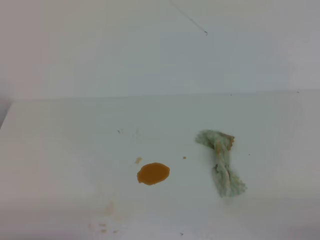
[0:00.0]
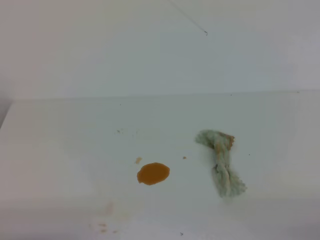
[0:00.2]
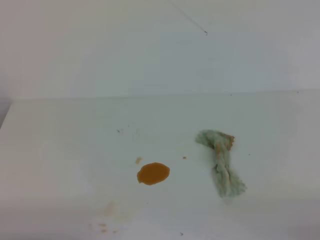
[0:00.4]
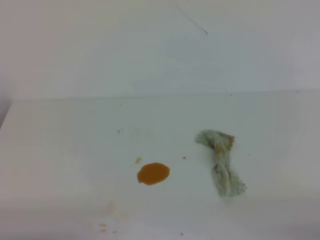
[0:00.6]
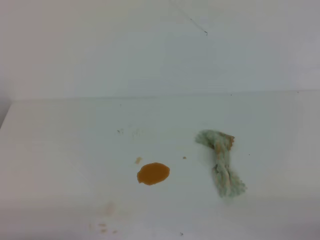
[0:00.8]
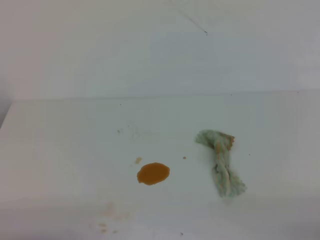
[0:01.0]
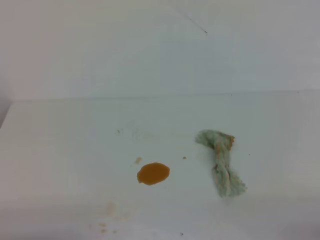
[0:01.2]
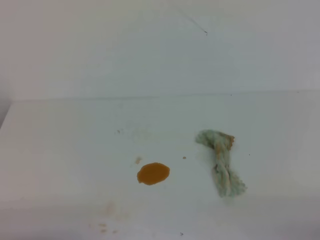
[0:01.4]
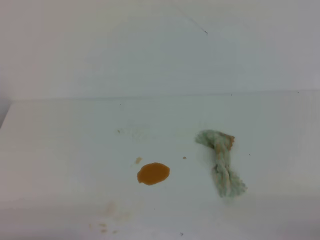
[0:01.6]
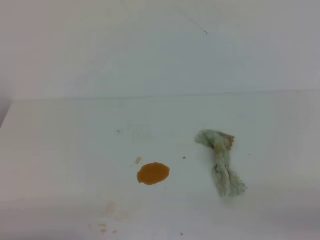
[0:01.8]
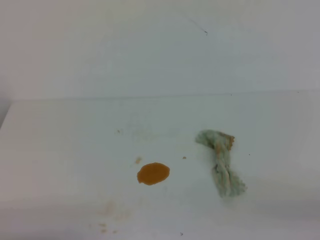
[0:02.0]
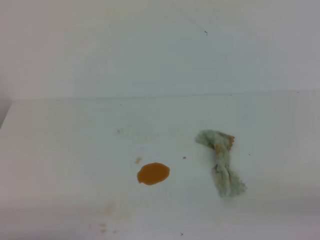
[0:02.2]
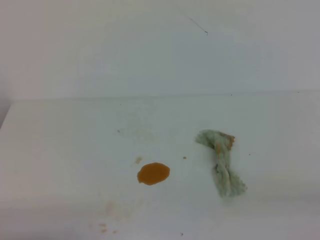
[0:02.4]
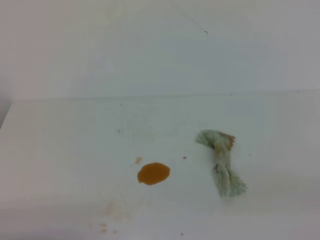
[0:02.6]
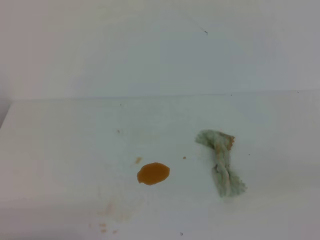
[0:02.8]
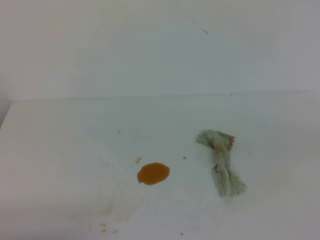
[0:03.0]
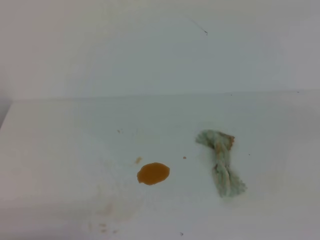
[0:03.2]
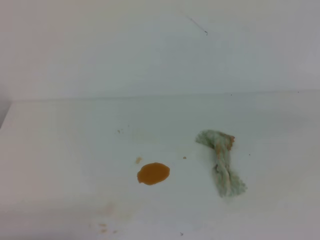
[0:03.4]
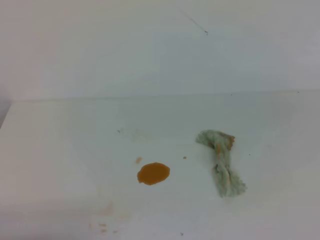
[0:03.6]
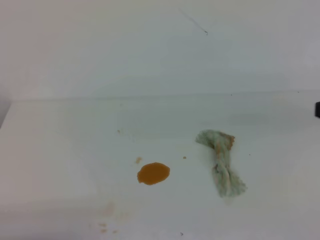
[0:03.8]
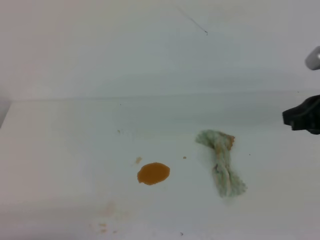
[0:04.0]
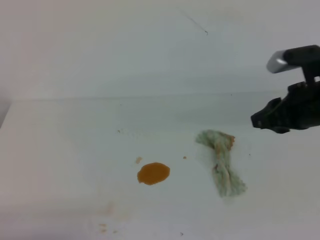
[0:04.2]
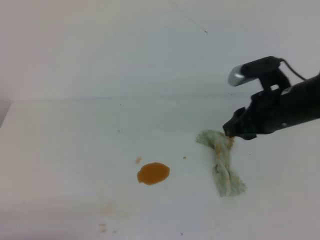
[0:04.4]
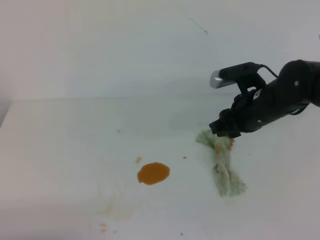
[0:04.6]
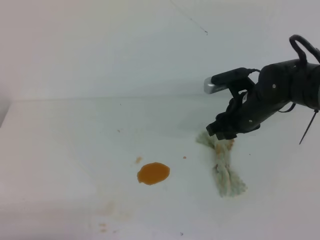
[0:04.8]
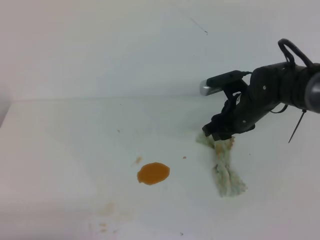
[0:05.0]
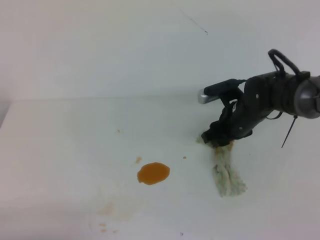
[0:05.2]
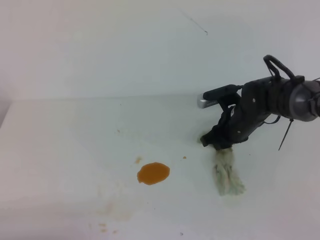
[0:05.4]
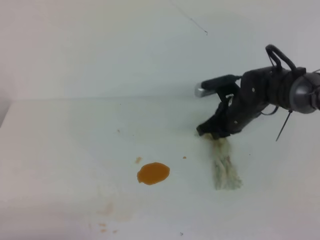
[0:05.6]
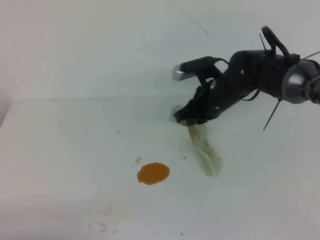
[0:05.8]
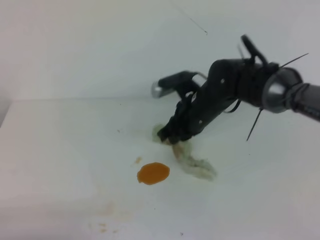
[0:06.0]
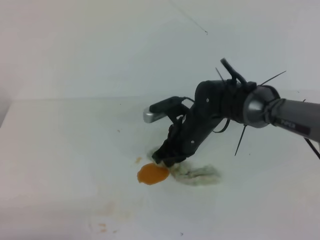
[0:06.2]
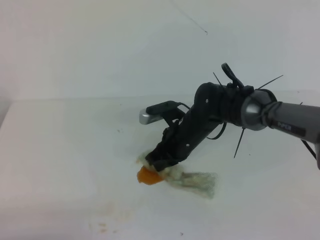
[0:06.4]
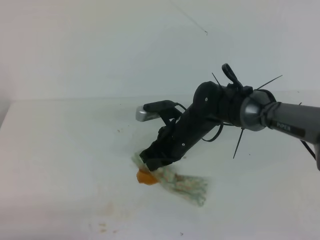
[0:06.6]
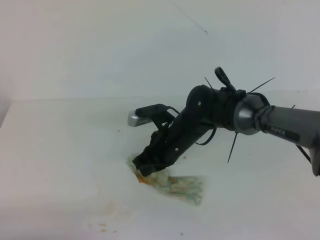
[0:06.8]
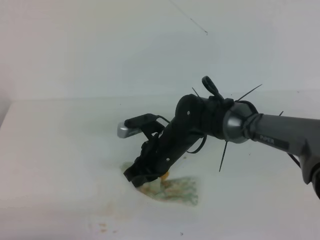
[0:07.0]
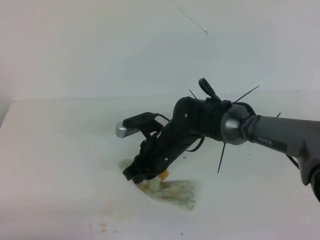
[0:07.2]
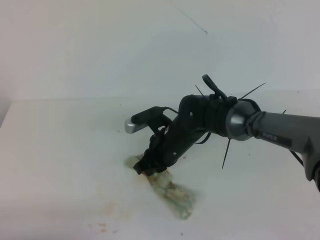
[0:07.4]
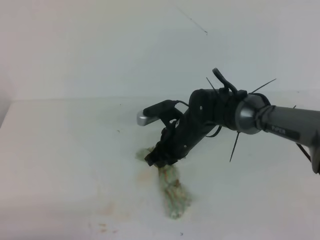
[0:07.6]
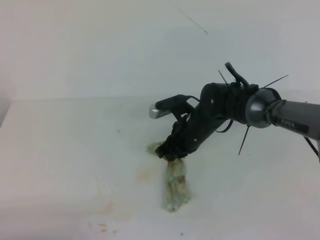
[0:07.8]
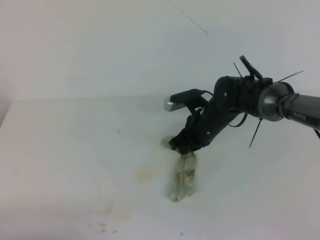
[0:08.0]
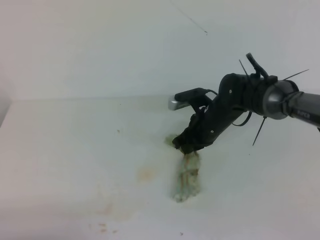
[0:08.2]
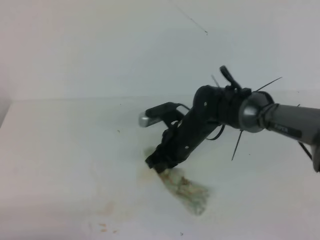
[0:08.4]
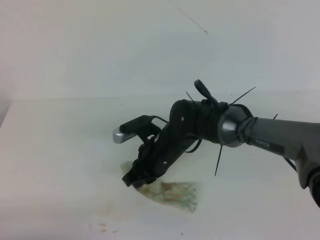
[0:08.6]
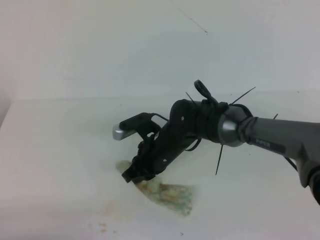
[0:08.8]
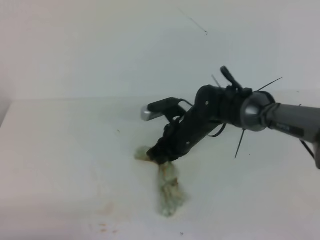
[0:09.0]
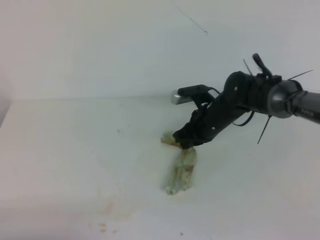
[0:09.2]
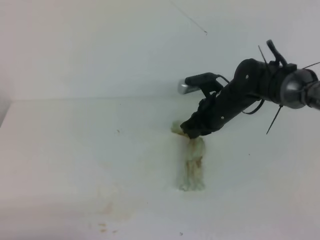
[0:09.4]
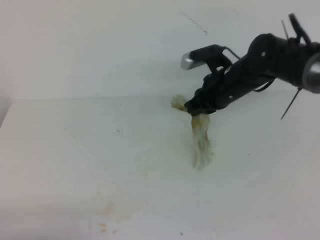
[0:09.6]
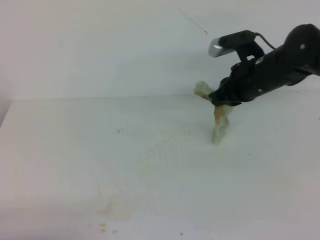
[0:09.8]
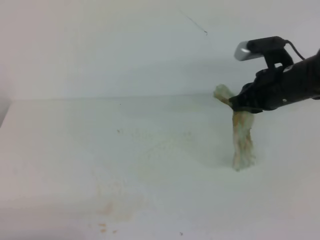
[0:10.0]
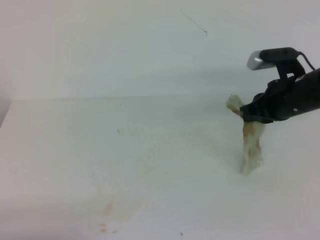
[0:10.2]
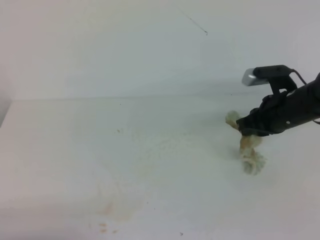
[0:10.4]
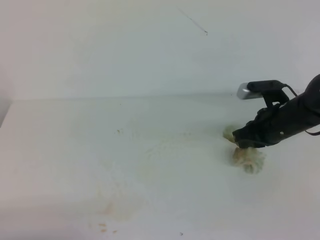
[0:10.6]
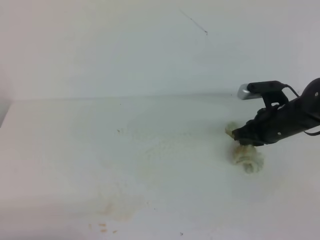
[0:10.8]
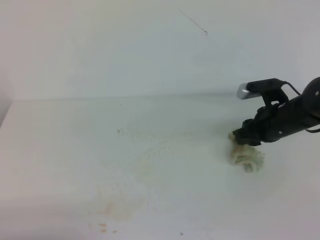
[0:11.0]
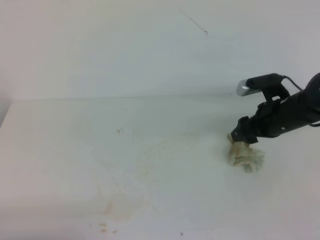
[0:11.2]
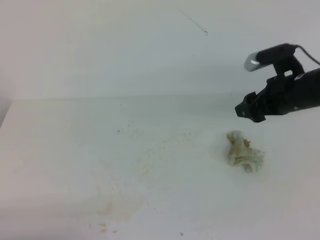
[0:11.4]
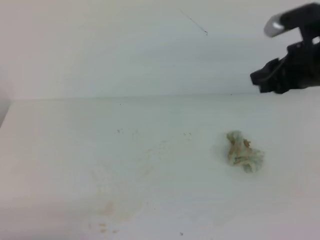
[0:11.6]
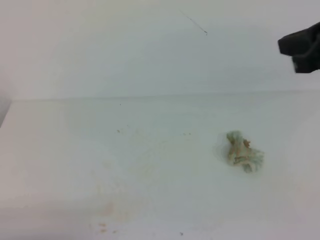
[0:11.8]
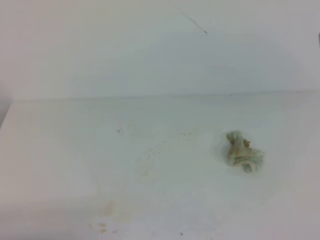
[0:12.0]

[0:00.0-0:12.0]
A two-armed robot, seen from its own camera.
0:00.0 to 0:01.6: Neither gripper changes place.
0:03.0 to 0:04.4: The right gripper is displaced forward and to the left by approximately 30 cm, and opens its fingers.
0:04.4 to 0:06.0: The right gripper goes some 15 cm to the left, forward and downward, and closes.
0:07.6 to 0:09.0: The grippers make only small movements.
0:09.0 to 0:10.4: The right gripper is displaced to the right and upward by approximately 20 cm.
0:10.4 to 0:12.0: The right gripper travels upward and backward by roughly 25 cm, and opens, then closes again.

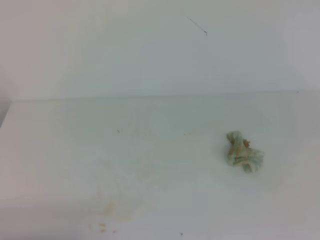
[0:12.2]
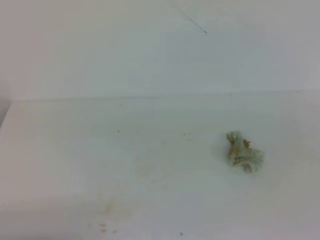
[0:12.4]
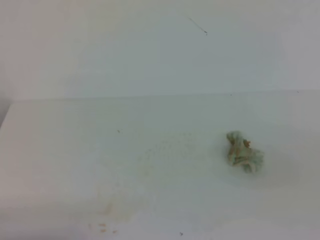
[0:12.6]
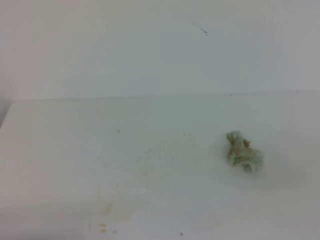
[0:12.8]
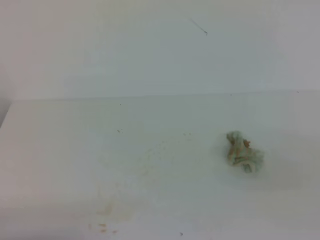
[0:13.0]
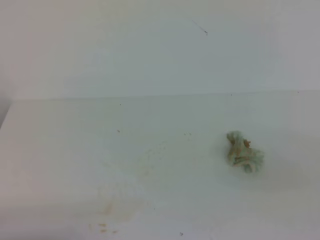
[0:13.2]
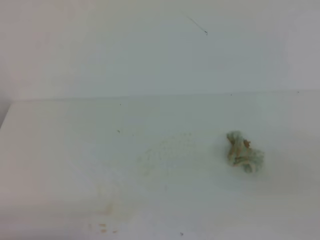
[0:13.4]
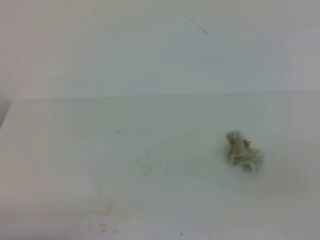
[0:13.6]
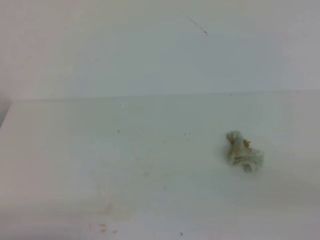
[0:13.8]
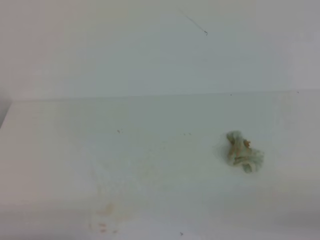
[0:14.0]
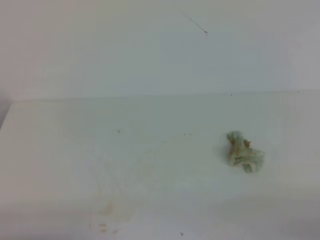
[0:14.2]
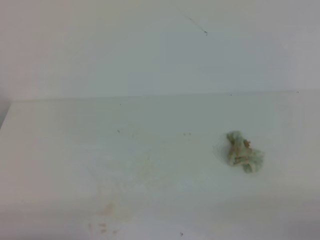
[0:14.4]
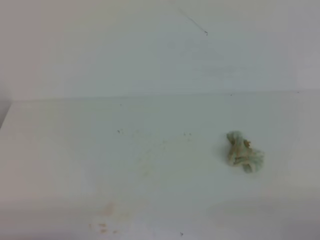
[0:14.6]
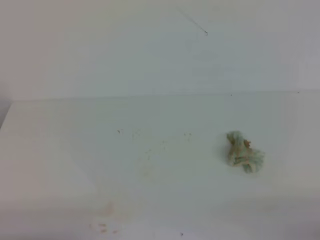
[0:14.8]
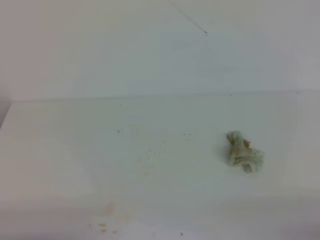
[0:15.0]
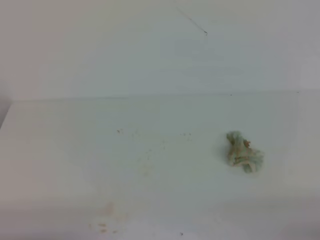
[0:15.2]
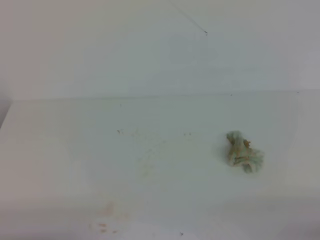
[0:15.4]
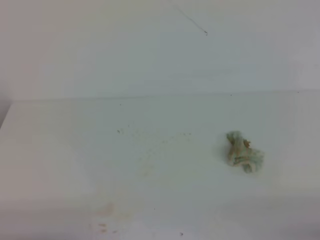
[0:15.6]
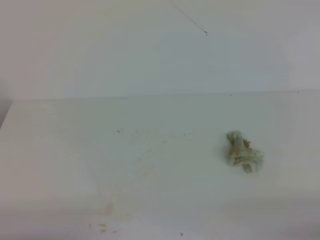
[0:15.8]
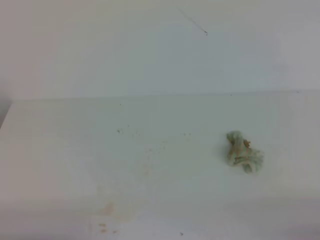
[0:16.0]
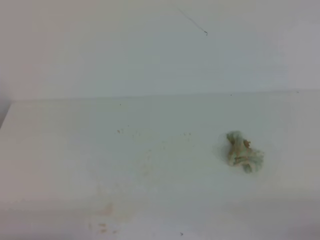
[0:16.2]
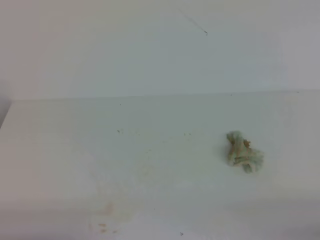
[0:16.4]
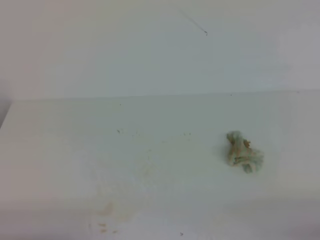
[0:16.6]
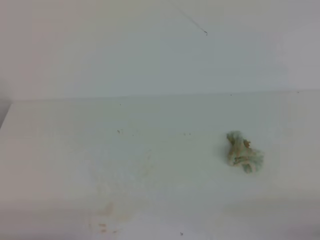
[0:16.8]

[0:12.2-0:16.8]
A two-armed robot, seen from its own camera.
0:12.2 to 0:13.8: The right gripper goes some 15 cm downward and backward.
0:15.2 to 0:16.8: Both grippers stay put.

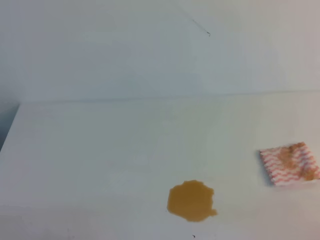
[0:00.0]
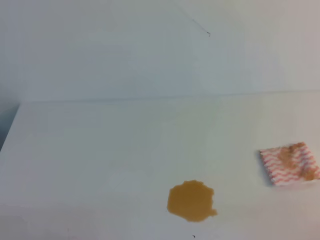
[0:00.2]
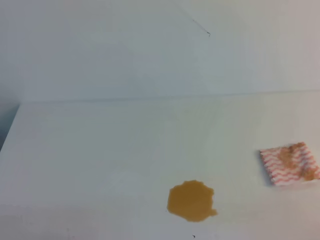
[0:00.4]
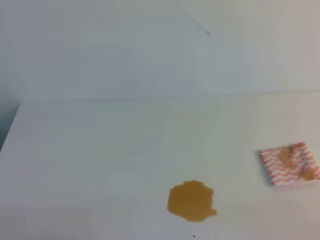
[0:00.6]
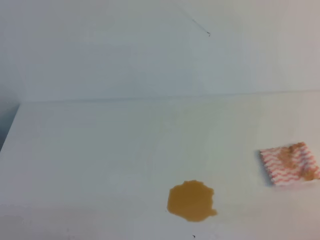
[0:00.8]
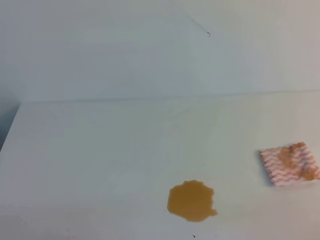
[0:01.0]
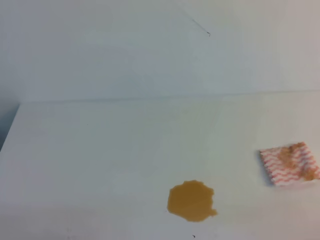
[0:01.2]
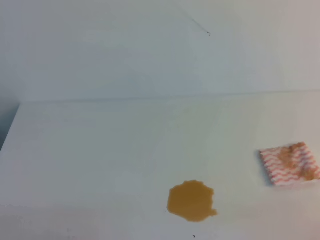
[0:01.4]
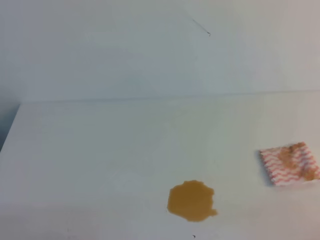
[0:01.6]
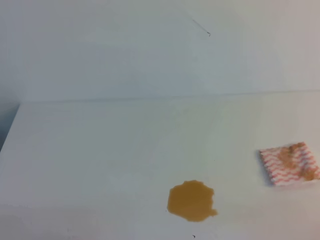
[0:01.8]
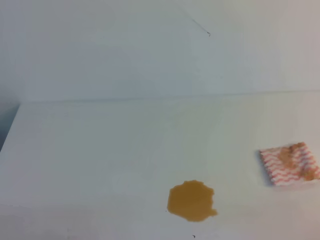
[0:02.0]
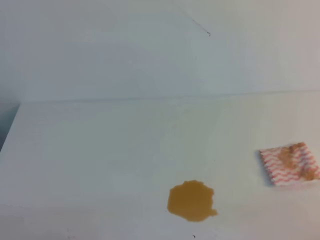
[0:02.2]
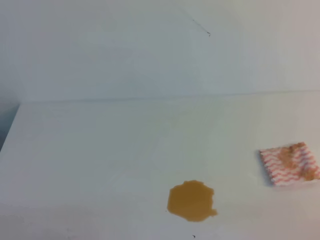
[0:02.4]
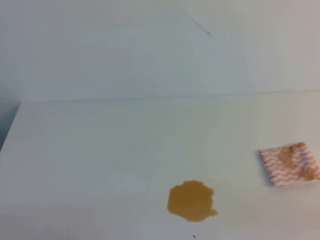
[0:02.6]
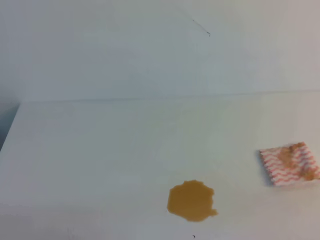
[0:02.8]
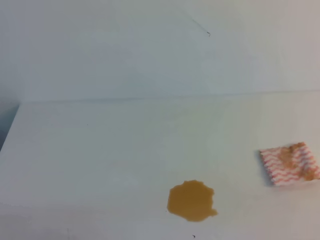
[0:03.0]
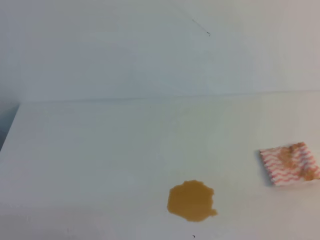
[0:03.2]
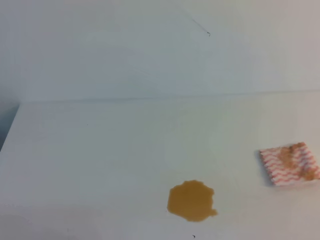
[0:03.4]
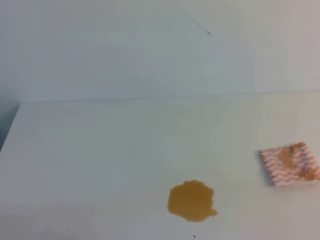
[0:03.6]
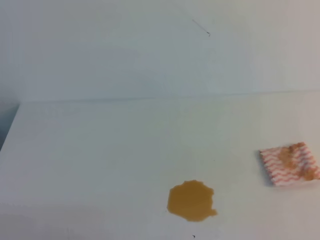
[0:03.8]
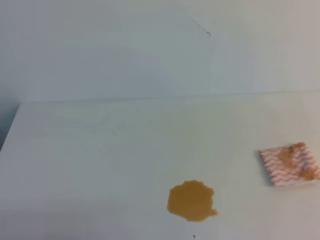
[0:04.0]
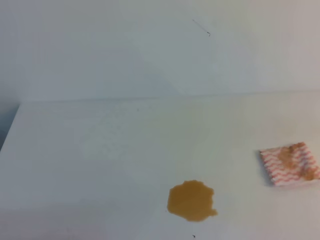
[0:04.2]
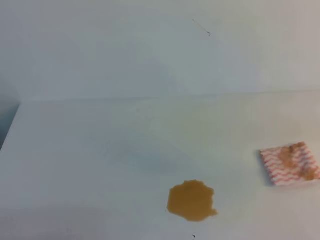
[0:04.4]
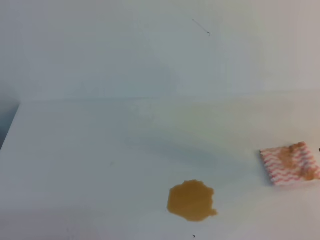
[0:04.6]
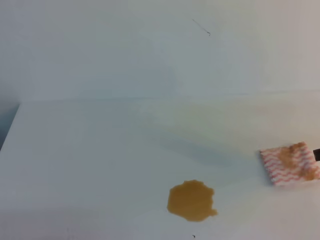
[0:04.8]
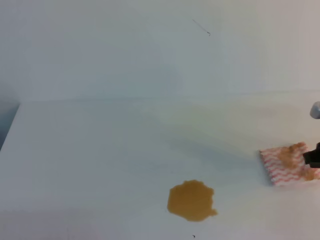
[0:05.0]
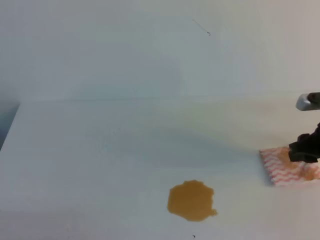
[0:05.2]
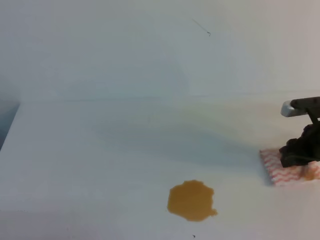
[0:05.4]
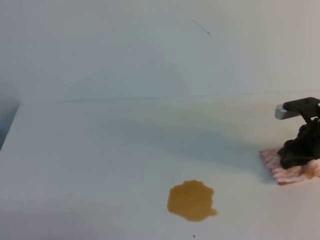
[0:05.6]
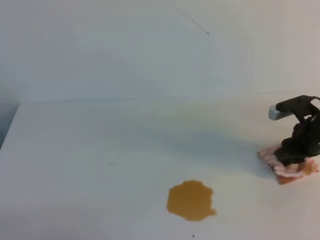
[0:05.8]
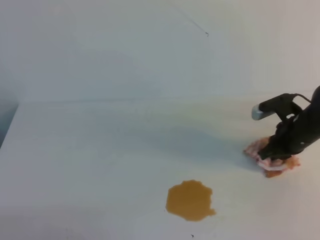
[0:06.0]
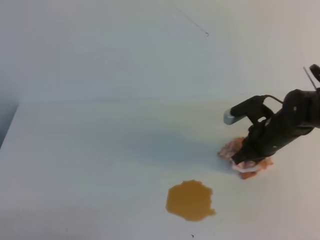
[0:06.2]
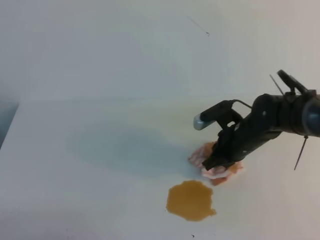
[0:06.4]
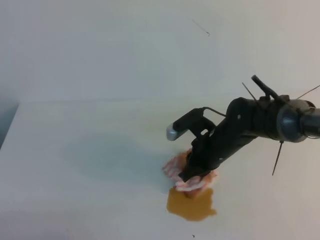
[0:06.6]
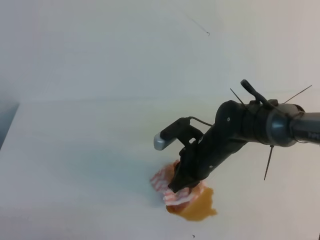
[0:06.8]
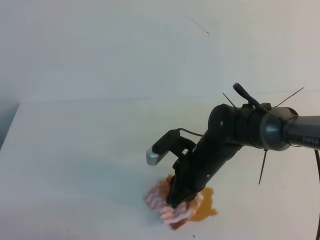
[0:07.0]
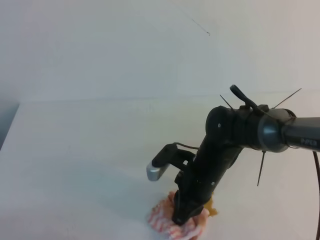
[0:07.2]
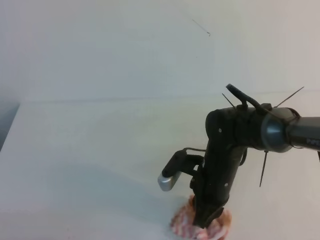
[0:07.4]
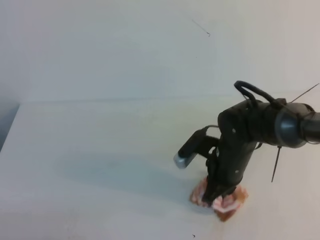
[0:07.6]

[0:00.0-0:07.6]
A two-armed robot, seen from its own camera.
0:00.0 to 0:01.6: Neither gripper changes place.
0:03.0 to 0:04.6: The right gripper is displaced forward by roughly 25 cm.
0:04.6 to 0:06.0: The right gripper shifts about 15 cm downward, forward and to the left, and opens.
0:06.0 to 0:07.6: The right gripper shifts roughly 15 cm to the left.
